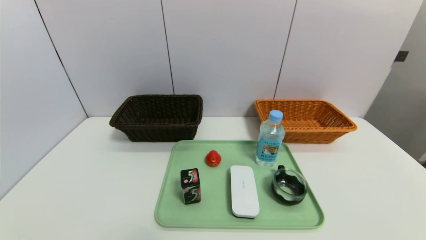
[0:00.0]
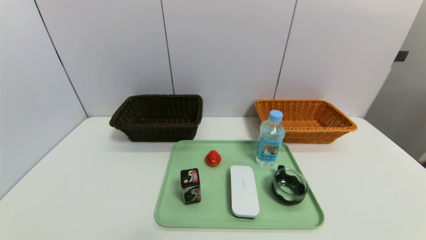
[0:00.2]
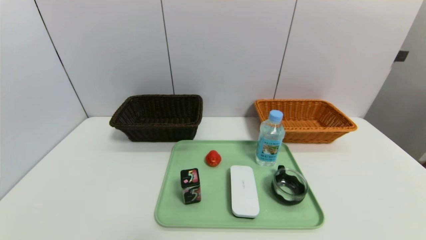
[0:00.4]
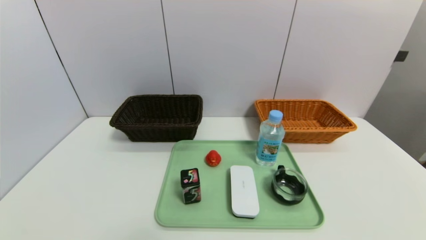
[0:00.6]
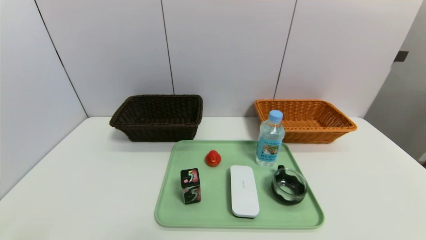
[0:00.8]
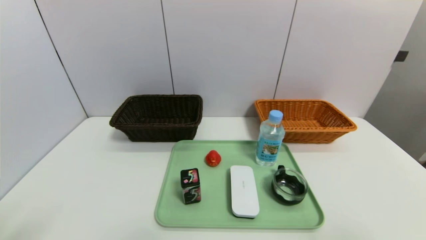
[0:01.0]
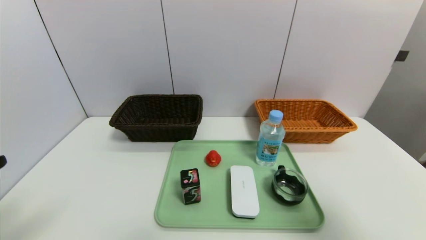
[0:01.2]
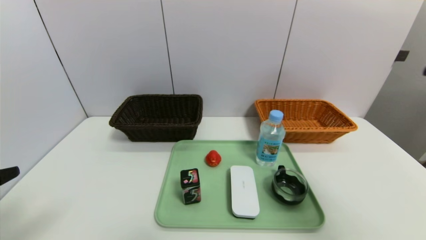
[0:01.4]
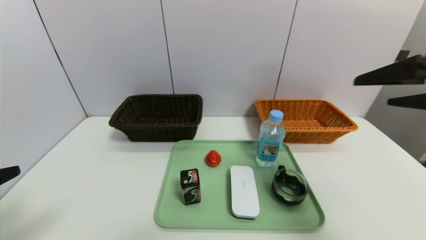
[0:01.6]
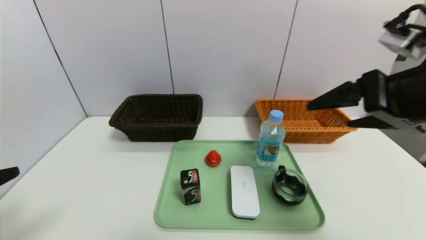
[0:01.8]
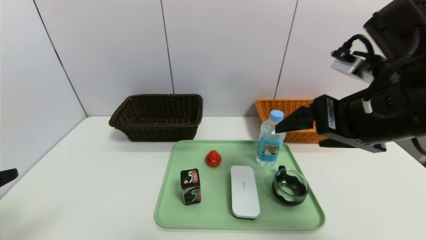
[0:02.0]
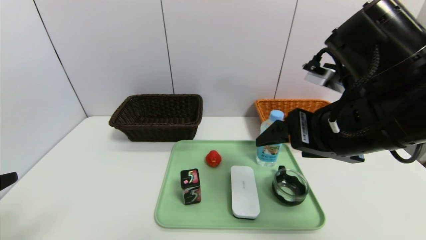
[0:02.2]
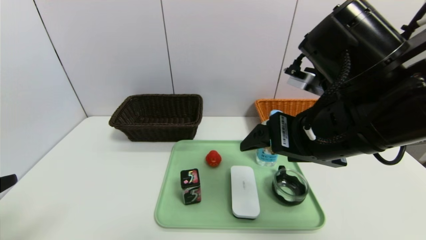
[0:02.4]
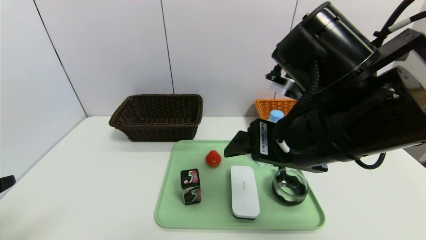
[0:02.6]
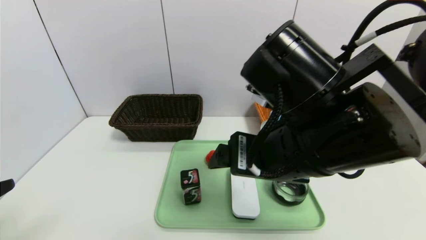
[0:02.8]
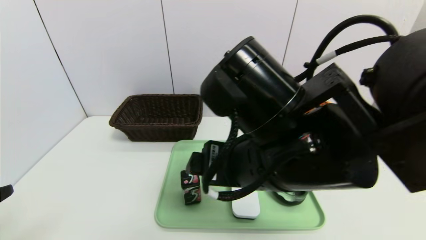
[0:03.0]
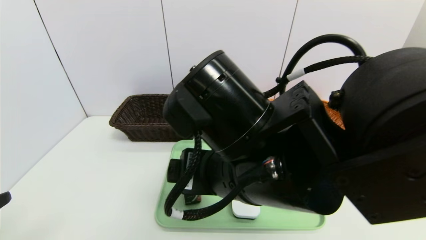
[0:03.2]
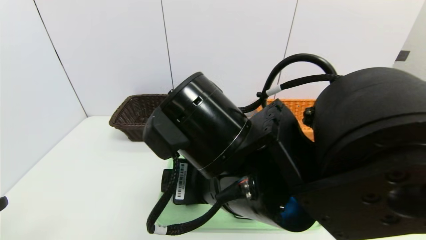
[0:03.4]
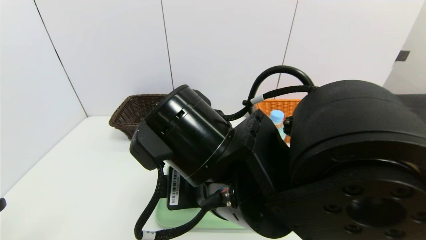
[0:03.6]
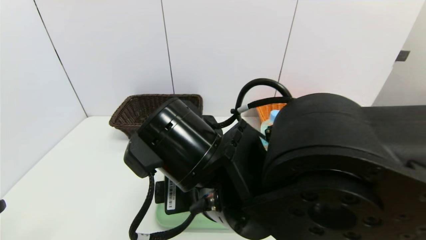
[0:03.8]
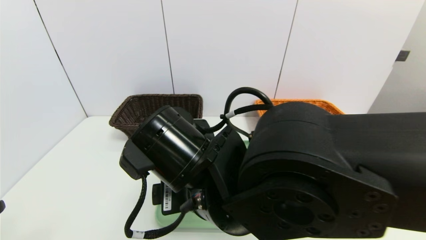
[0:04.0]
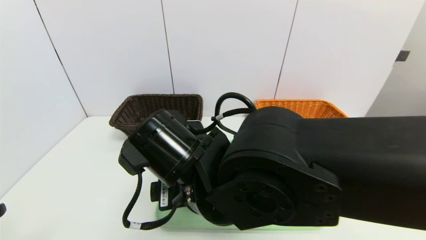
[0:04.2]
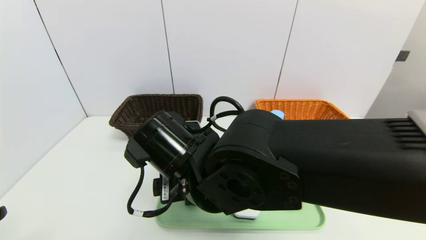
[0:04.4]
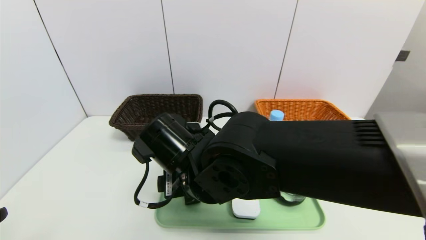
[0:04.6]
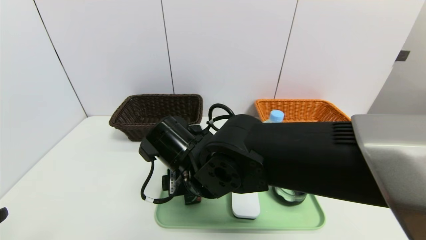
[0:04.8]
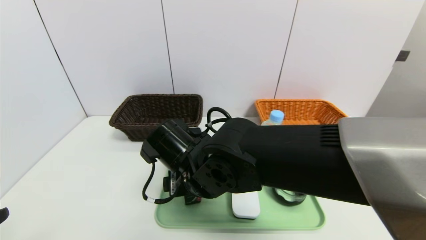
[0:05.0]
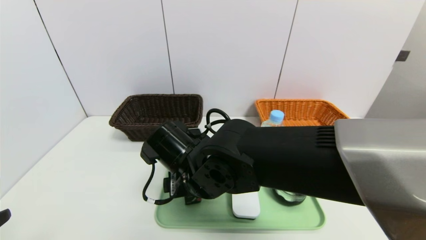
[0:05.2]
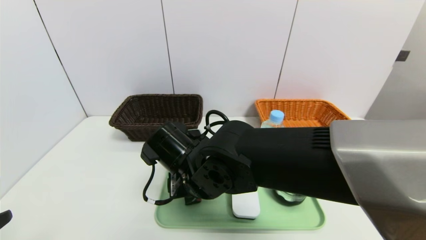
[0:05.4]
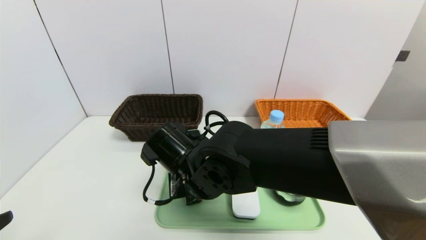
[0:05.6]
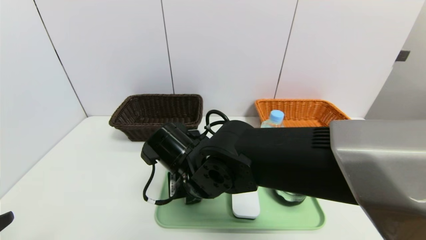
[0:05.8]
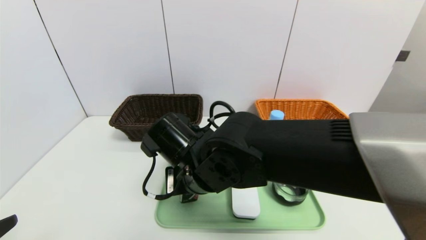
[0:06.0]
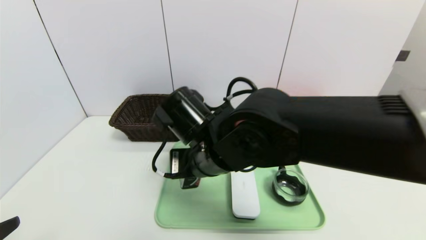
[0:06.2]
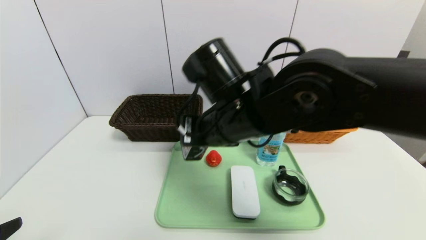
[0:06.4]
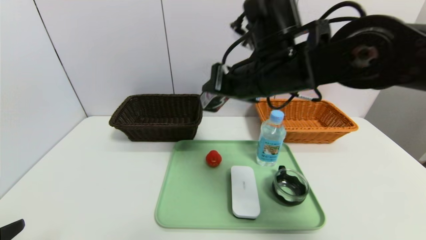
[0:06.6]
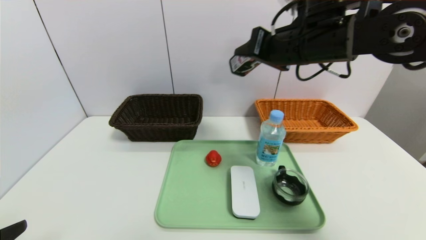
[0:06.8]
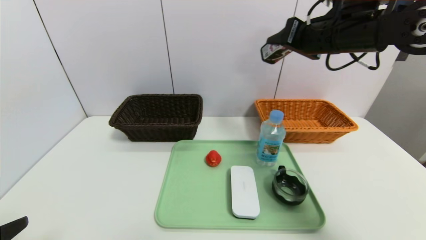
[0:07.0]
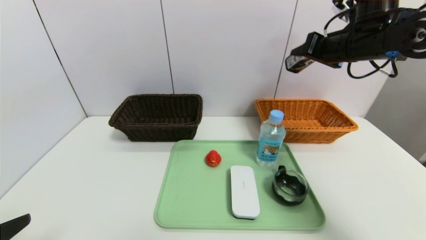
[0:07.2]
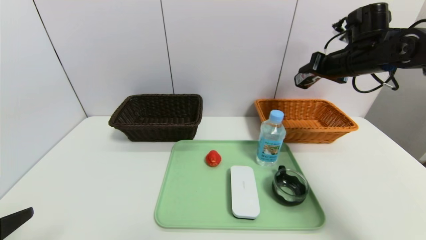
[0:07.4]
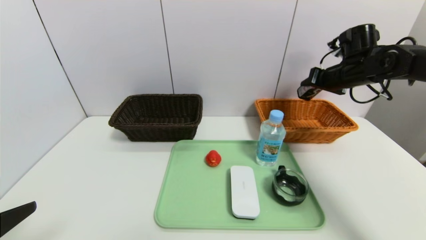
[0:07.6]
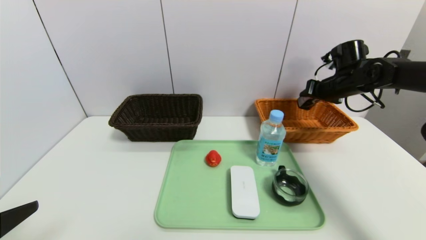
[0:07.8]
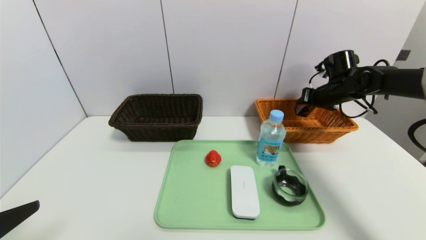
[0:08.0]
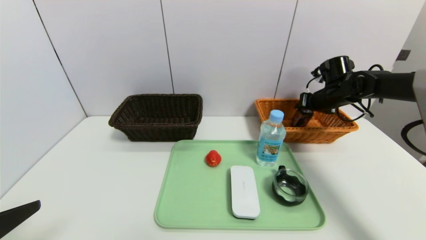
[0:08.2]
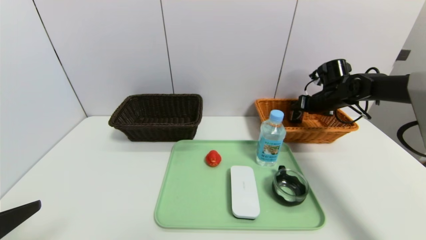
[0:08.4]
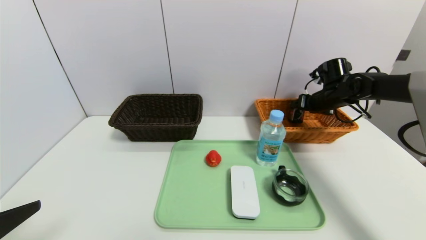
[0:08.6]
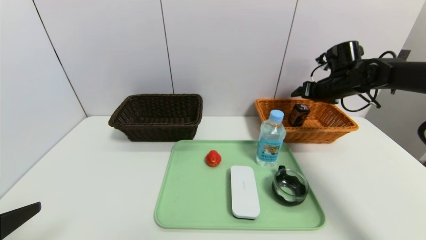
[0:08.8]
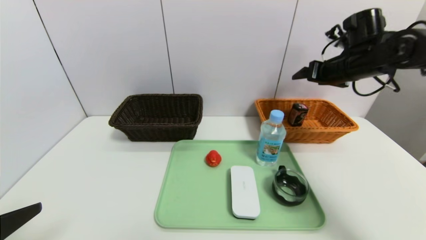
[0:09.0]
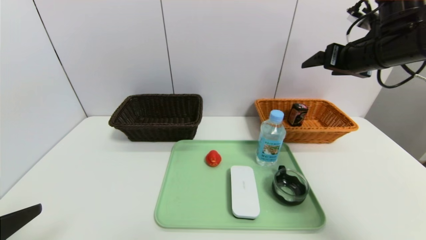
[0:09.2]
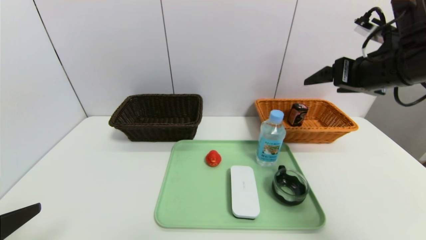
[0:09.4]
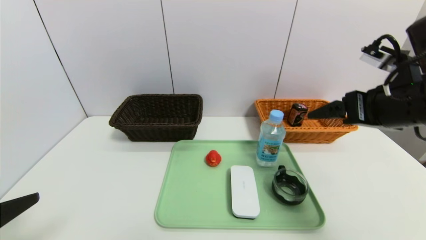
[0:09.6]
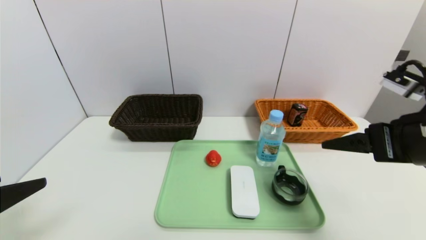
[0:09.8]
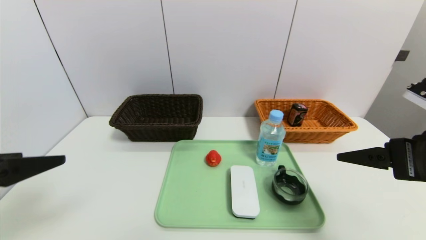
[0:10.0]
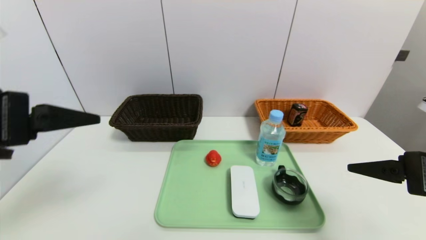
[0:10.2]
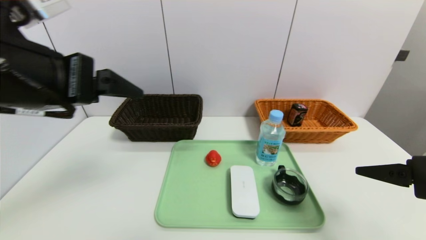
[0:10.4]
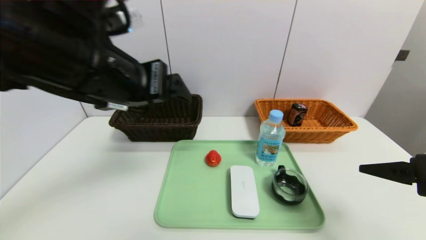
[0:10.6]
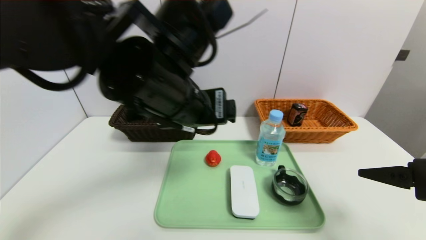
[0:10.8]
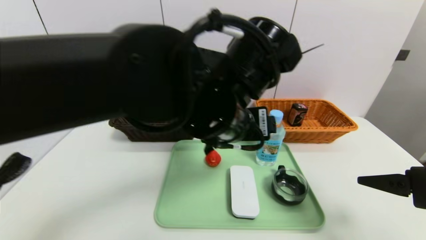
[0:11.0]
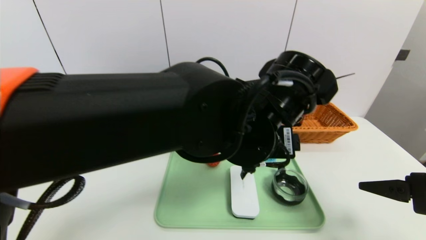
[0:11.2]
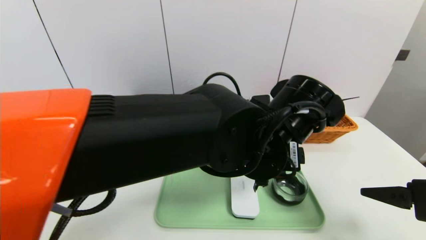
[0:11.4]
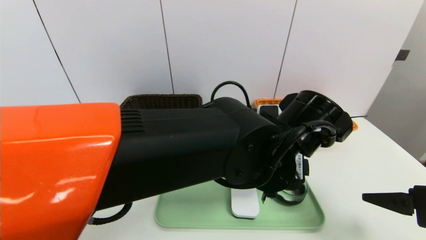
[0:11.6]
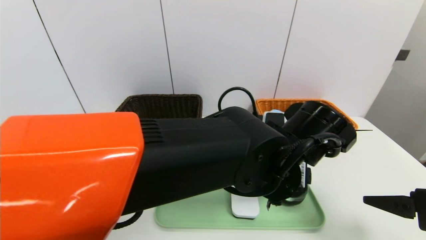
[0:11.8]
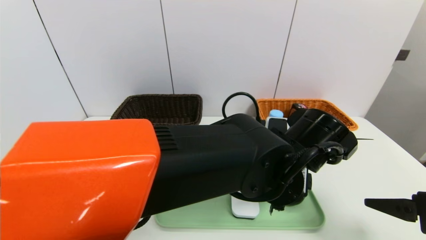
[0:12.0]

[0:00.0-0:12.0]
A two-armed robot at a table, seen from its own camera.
Task of the whole recording: place the food in the right basket with the right gripper, and place the non food items in the left basket with the left gripper.
Step, 0:00.0 to 0:08.8: Grasp the square chewing gum and put it in the right basket.
0:00.0 to 0:01.6: The left gripper is displaced upward by about 20 cm. The right gripper travels upward and forward by some 35 cm.
0:01.6 to 0:03.0: The right gripper is displaced to the left by some 25 cm.
0:03.0 to 0:04.4: The right gripper heads to the left and downward, covering about 10 cm.
0:04.4 to 0:06.0: The right gripper closes its fingers.
0:06.0 to 0:07.6: The right gripper heads to the right and forward, covering roughly 40 cm.
0:07.6 to 0:09.0: The right gripper moves roughly 10 cm downward and comes back, and opens.
0:09.0 to 0:10.4: The left gripper travels upward, forward and to the right by some 20 cm. The right gripper moves backward, about 25 cm.
0:10.4 to 0:12.0: The left gripper goes approximately 35 cm to the right and downward.

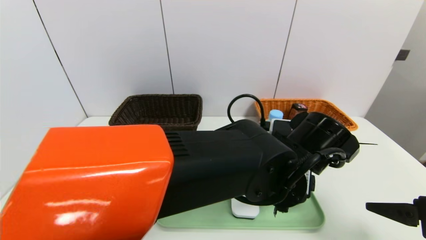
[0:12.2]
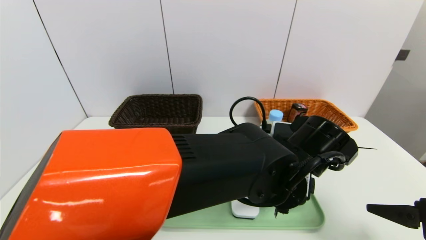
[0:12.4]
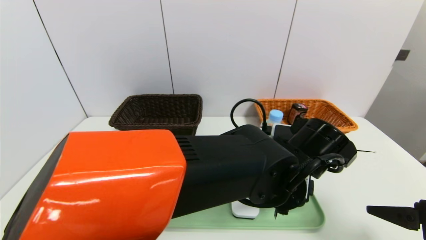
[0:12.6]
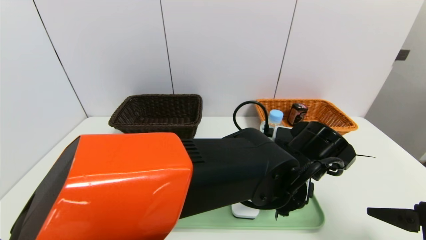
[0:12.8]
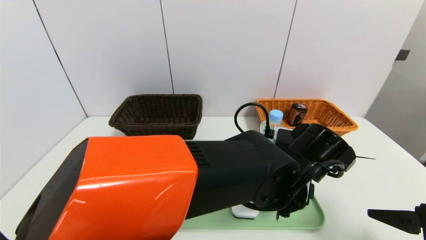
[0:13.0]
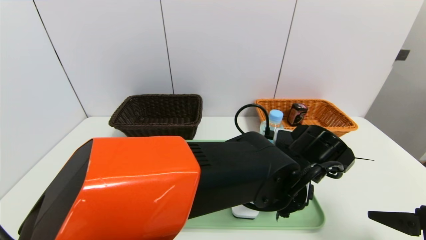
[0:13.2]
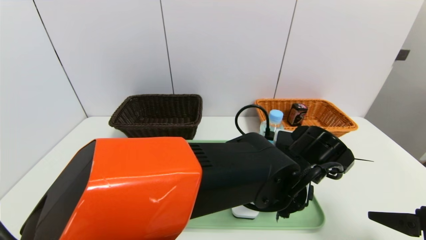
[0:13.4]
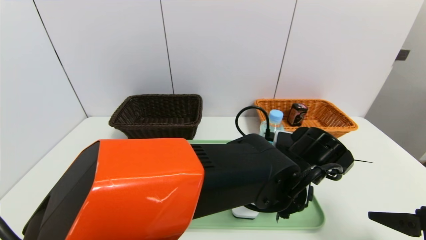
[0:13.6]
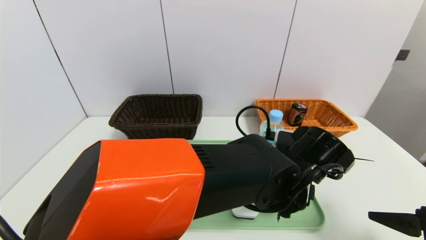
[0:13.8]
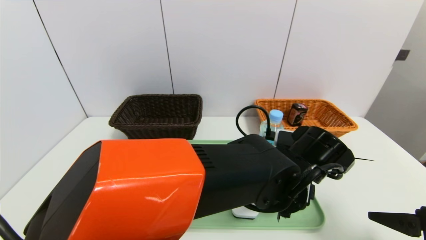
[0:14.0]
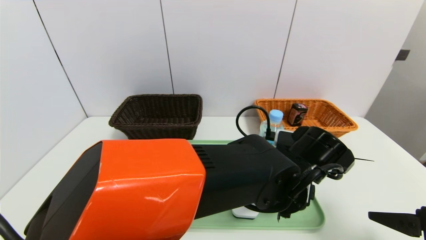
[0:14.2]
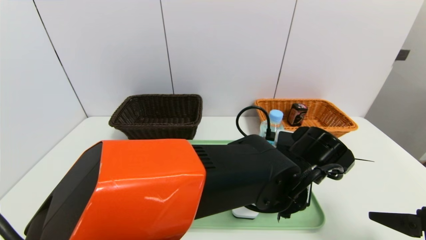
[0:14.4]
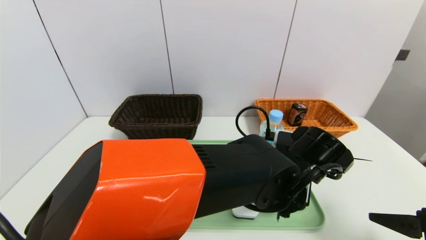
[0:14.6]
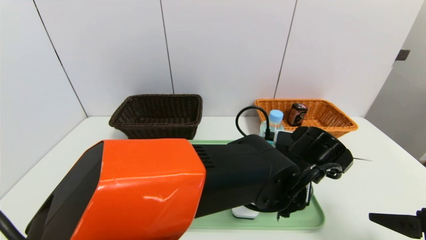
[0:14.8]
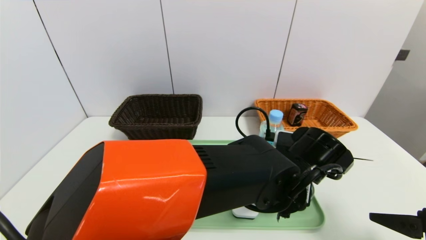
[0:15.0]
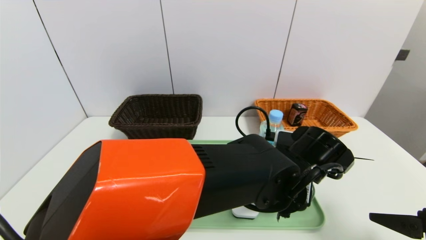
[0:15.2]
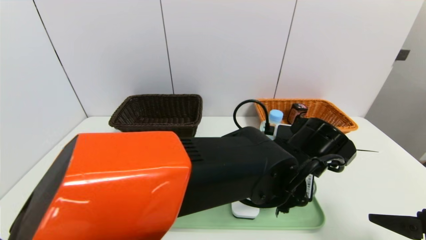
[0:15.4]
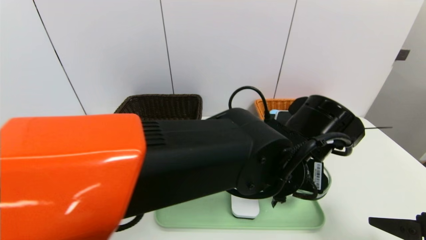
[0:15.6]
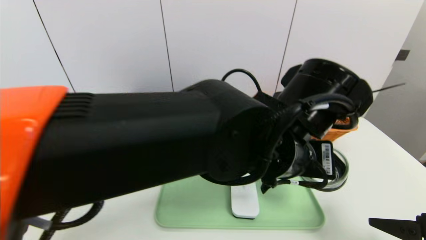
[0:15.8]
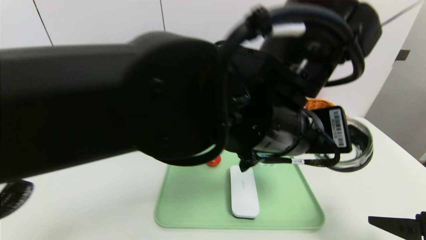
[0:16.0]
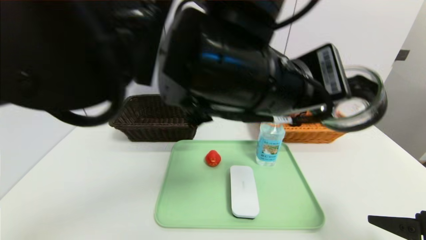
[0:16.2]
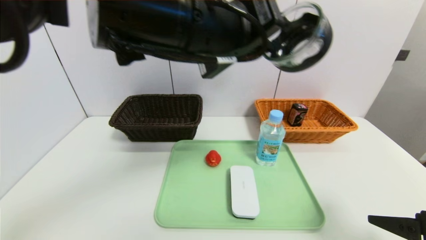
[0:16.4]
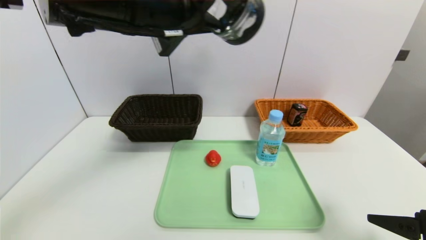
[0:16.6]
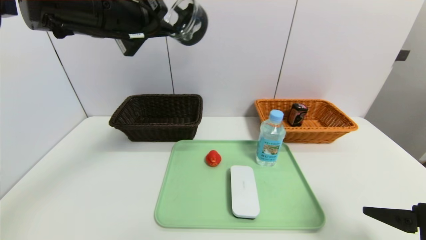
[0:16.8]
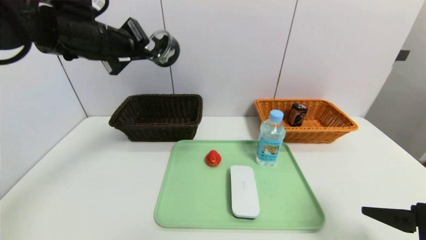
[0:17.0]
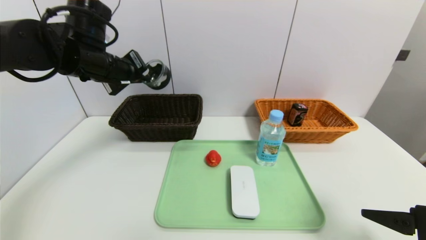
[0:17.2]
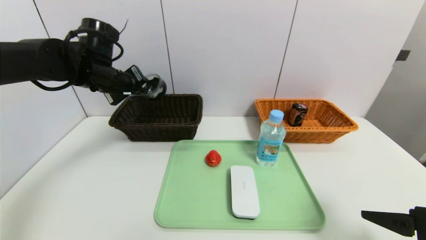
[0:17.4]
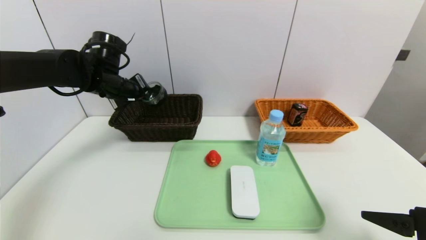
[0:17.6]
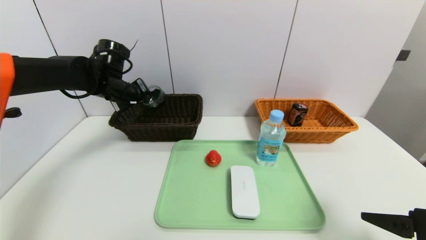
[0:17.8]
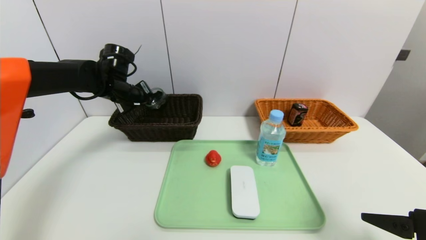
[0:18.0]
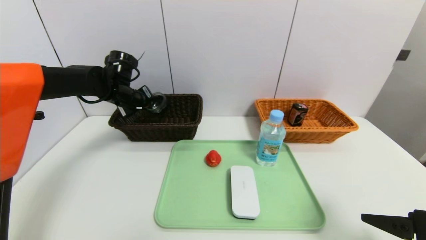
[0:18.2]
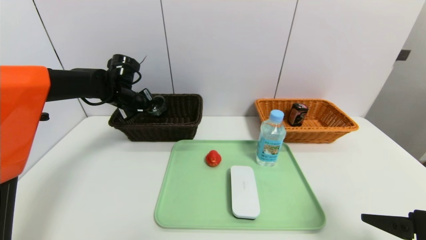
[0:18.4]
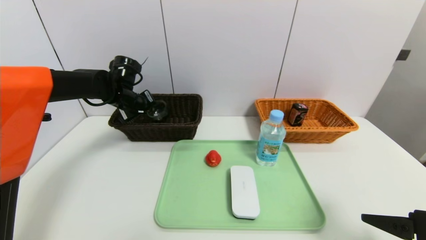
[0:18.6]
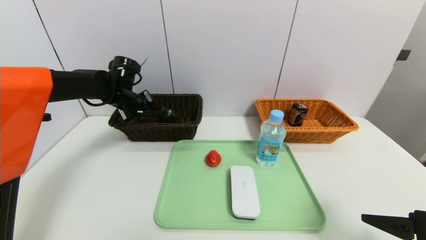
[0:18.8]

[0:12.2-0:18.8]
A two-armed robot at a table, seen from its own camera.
Task of the whole recording: place the food in the right basket with the right gripper, and place the non food items in the left basket with the left gripper.
0:13.8 to 0:15.4: The left gripper closes.
0:15.4 to 0:17.2: The left gripper heads to the left, forward and upward, covering some 35 cm.
0:17.2 to 0:18.8: The left gripper moves downward and forward, roughly 15 cm, and opens.
